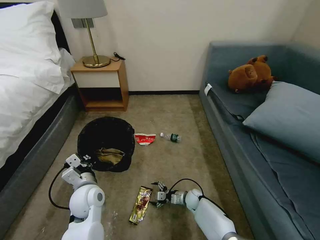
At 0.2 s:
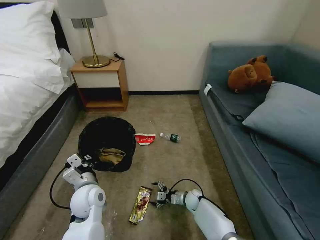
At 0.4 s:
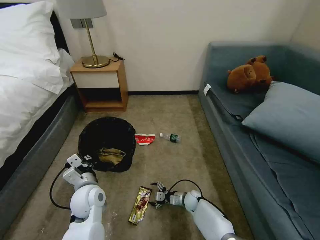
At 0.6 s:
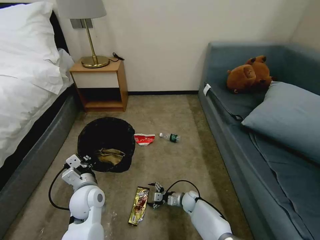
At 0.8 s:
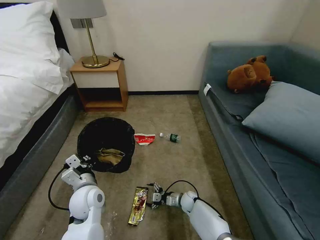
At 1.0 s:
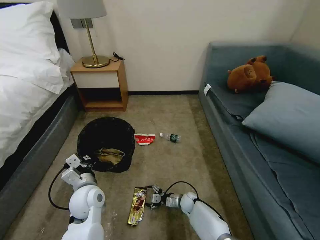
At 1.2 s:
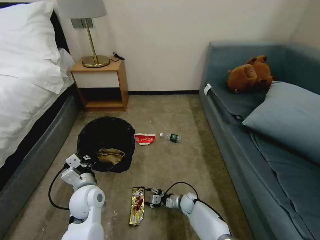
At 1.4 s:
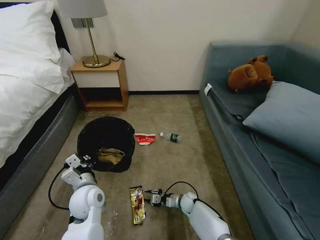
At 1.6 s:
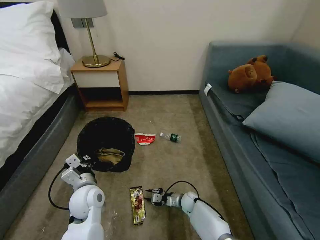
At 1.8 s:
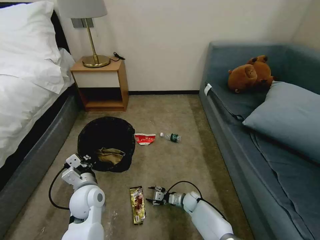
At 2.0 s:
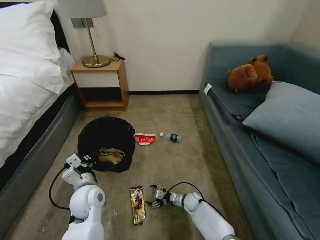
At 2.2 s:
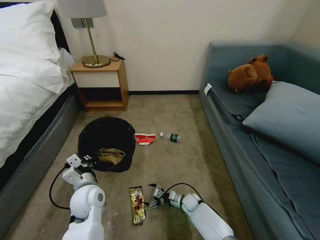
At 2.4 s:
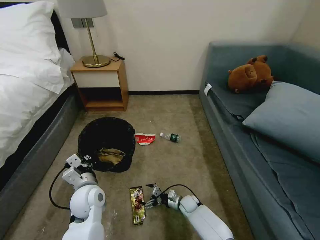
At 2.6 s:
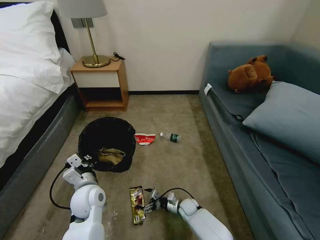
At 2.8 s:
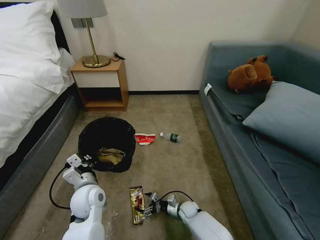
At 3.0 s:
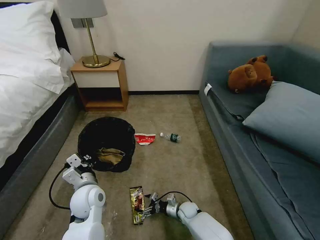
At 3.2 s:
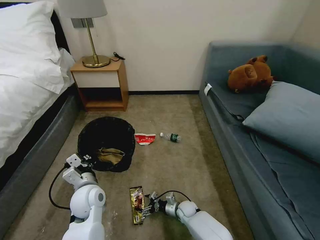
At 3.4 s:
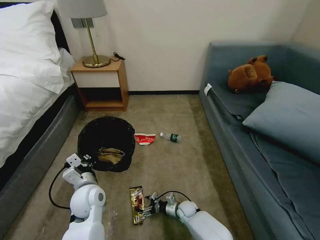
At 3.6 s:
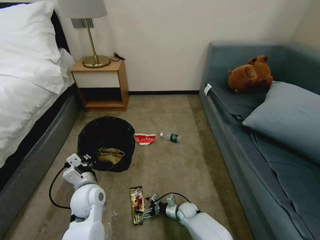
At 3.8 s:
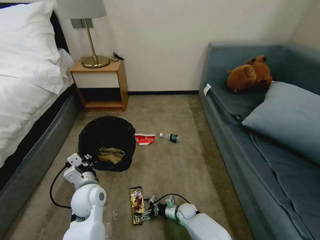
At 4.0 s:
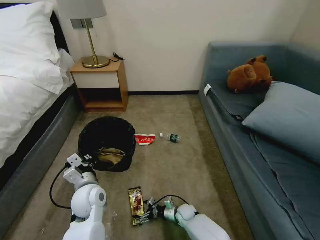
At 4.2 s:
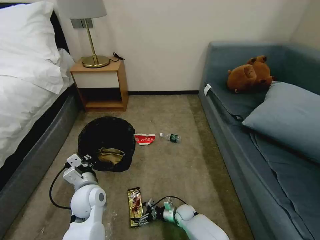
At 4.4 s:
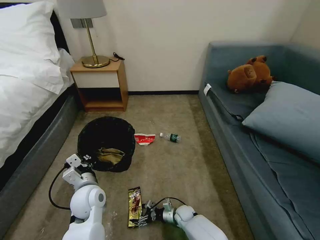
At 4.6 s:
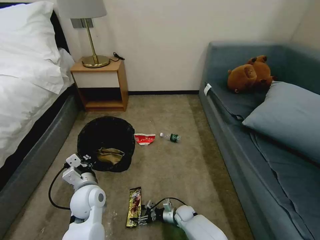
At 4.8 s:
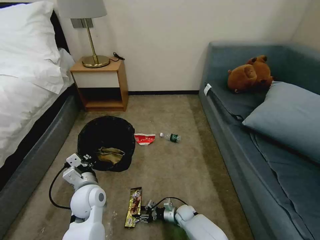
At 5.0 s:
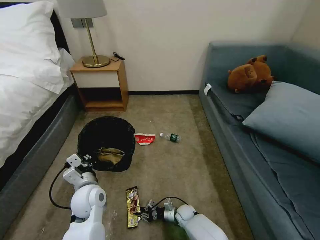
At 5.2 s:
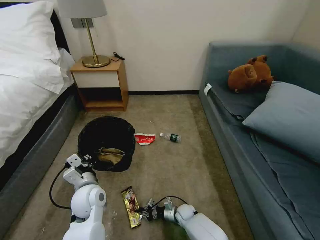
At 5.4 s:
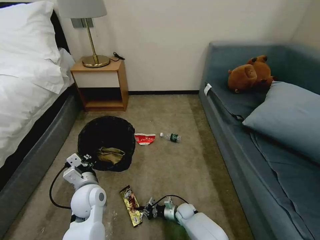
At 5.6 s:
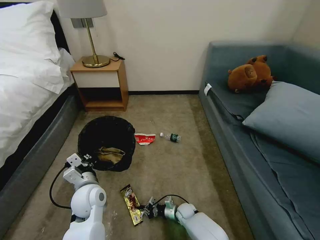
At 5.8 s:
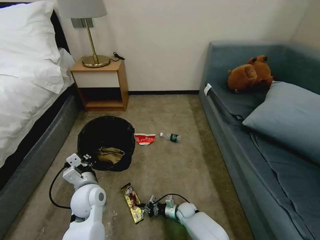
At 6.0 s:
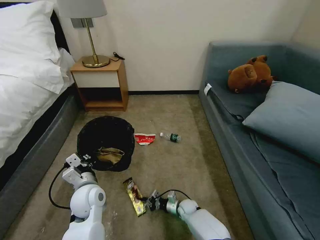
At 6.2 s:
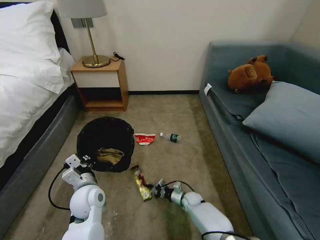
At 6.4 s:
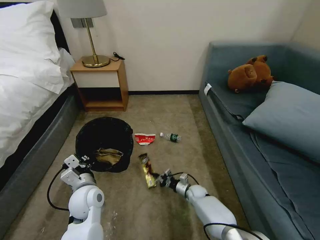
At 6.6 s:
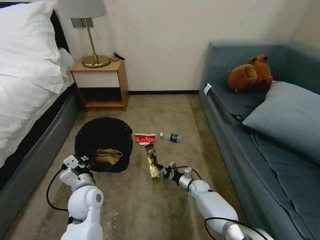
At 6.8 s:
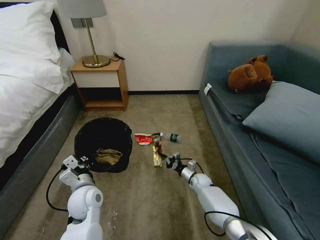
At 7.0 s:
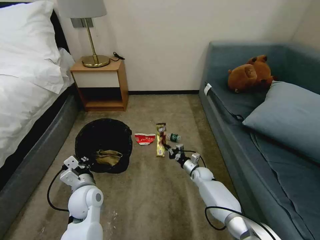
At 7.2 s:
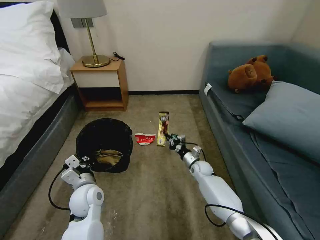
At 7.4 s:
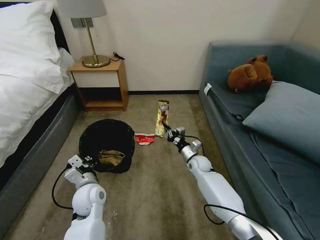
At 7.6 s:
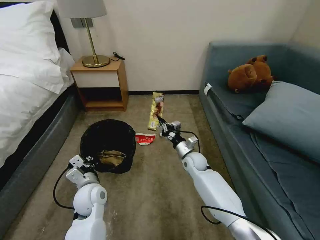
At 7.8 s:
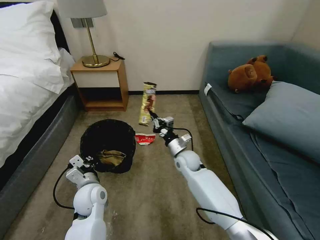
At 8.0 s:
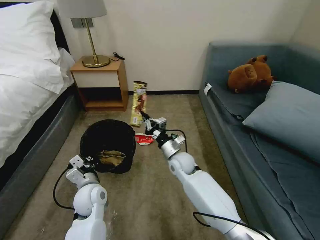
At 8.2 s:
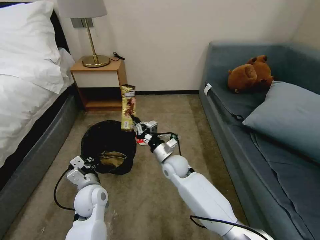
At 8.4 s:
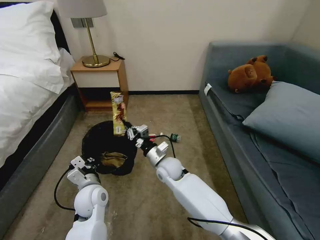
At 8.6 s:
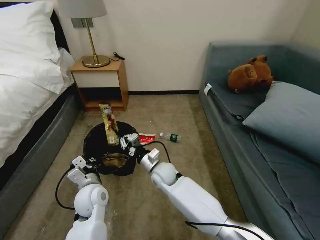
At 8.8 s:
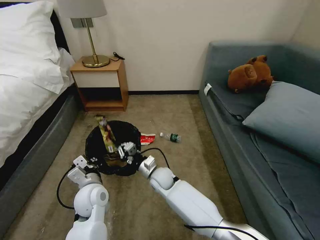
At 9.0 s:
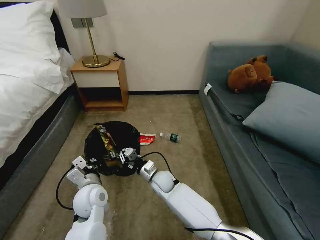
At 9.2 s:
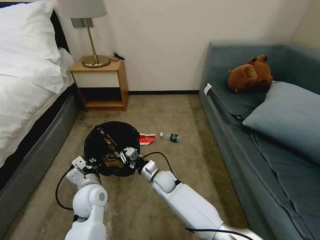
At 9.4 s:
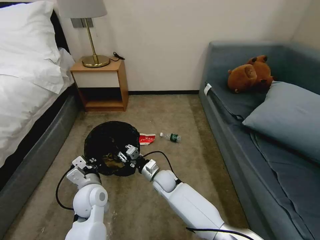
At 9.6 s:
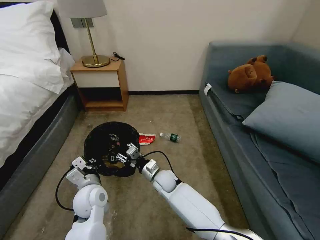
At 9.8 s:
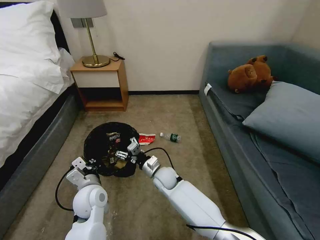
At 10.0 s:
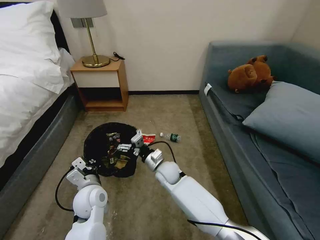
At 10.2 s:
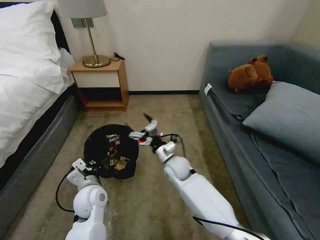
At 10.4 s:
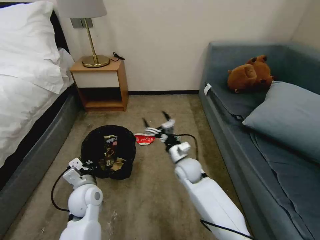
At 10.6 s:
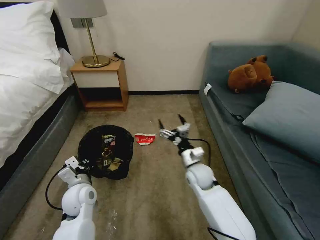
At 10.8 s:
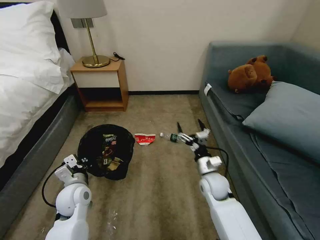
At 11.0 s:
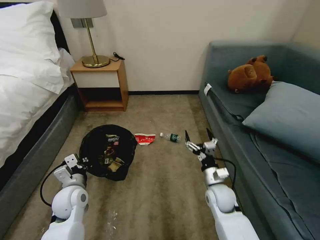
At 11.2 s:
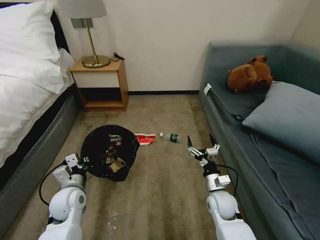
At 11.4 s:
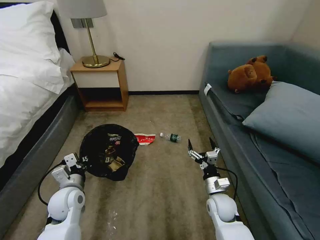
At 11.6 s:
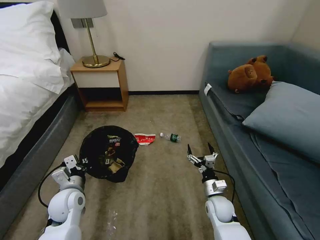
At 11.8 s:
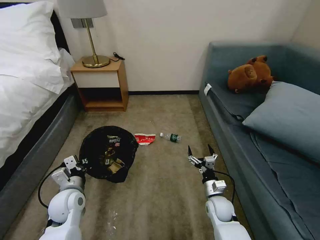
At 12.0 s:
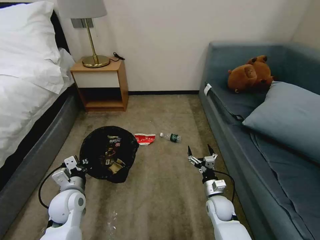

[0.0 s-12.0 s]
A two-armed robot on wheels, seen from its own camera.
Task of the whole recording: Pick up the trash bin, then pick up the garbage on the floor and place it into the trash bin.
0.0 to 1.6 s: The right gripper closes.
1.6 to 3.0 s: The right gripper opens its fingers.
3.0 to 4.4 s: The grippers make only small movements.
4.4 to 6.0 s: The right gripper closes its fingers.
6.0 to 7.6 s: The right gripper travels upward and forward by approximately 25 cm.
7.6 to 9.0 s: The right gripper moves to the left and backward, approximately 15 cm.
9.0 to 10.4 s: The right gripper shifts approximately 10 cm to the right and upward, and opens up.
10.4 to 12.0 s: The left gripper moves to the left, roughly 5 cm, while the right gripper shifts some 20 cm to the right, downward and backward.

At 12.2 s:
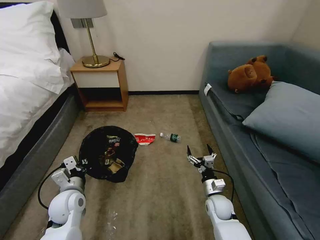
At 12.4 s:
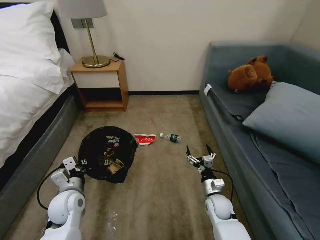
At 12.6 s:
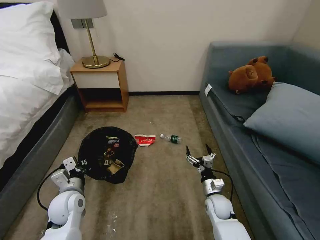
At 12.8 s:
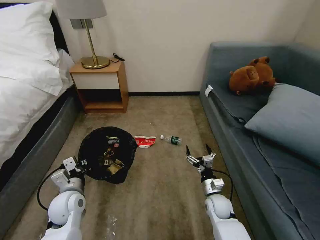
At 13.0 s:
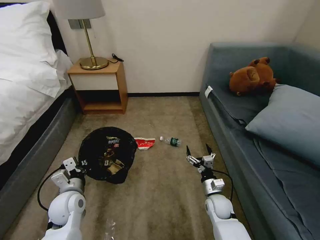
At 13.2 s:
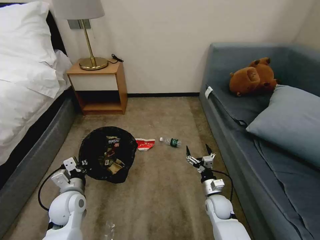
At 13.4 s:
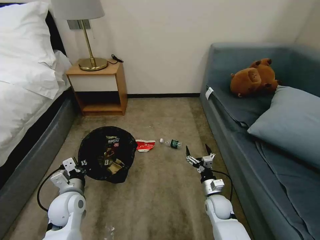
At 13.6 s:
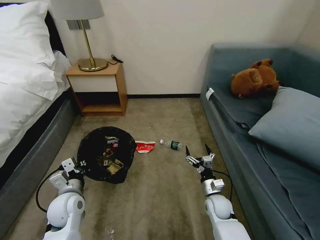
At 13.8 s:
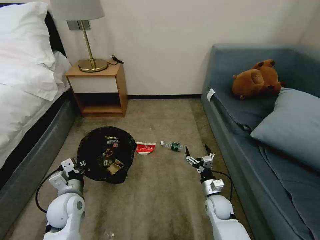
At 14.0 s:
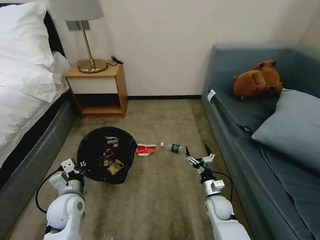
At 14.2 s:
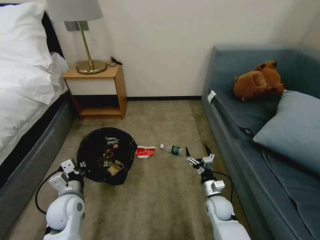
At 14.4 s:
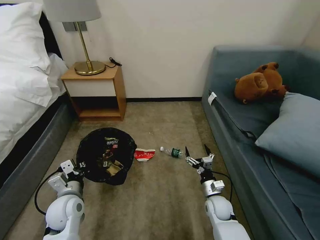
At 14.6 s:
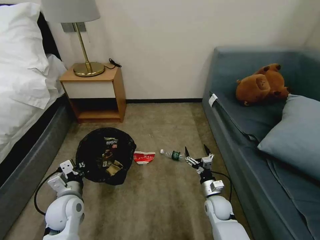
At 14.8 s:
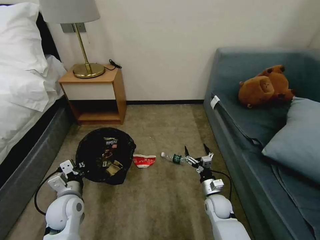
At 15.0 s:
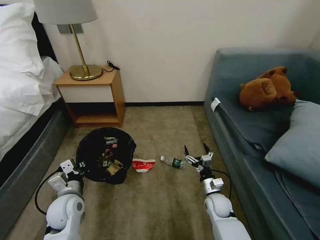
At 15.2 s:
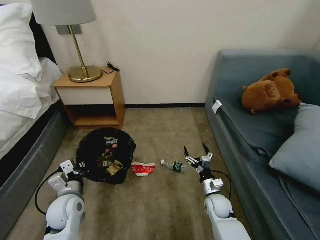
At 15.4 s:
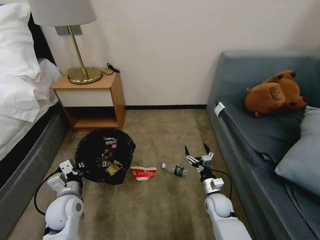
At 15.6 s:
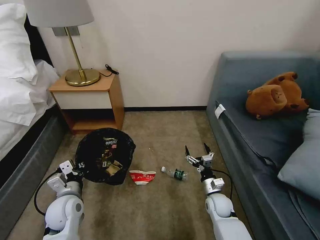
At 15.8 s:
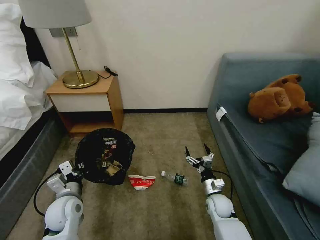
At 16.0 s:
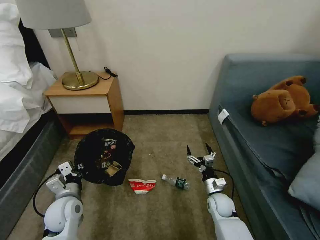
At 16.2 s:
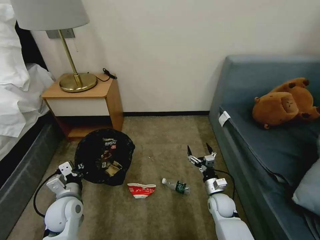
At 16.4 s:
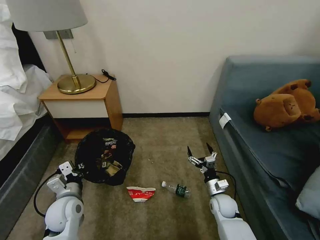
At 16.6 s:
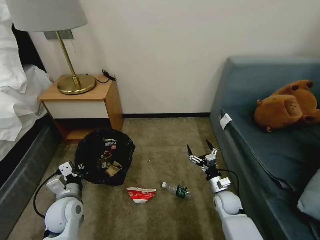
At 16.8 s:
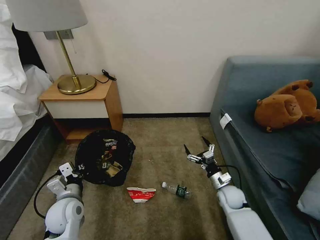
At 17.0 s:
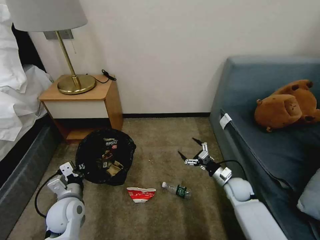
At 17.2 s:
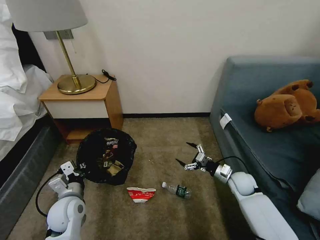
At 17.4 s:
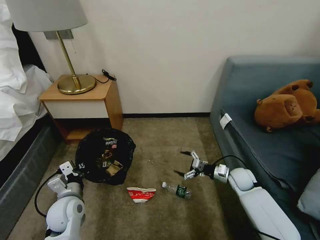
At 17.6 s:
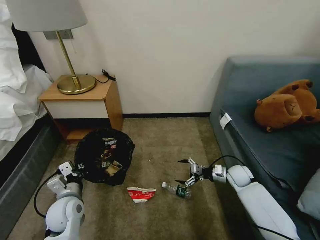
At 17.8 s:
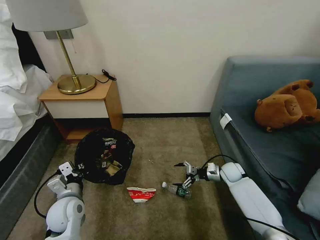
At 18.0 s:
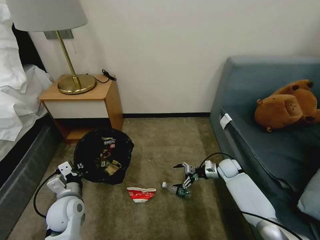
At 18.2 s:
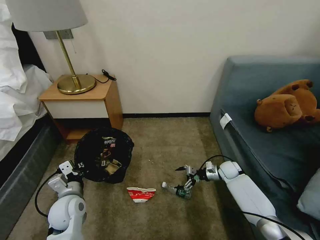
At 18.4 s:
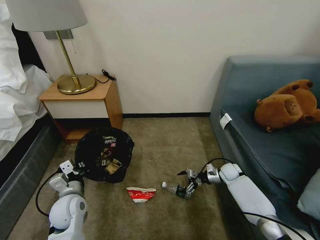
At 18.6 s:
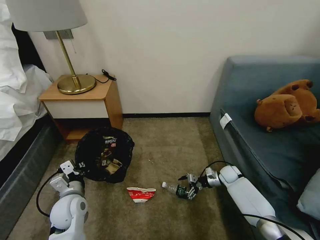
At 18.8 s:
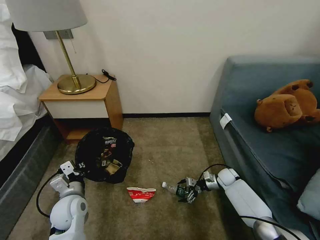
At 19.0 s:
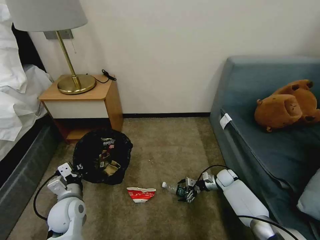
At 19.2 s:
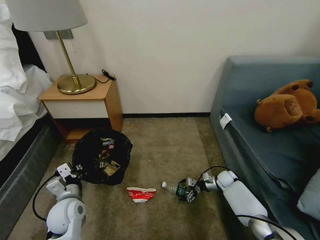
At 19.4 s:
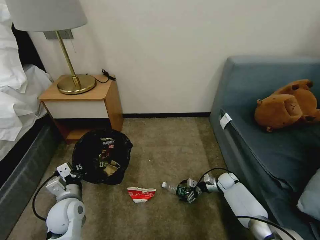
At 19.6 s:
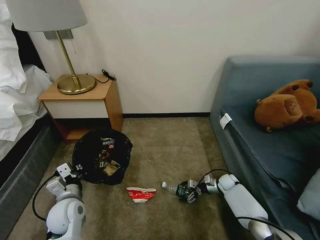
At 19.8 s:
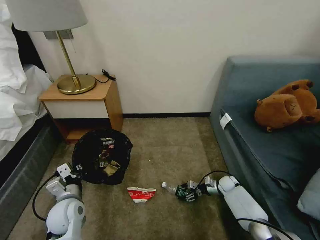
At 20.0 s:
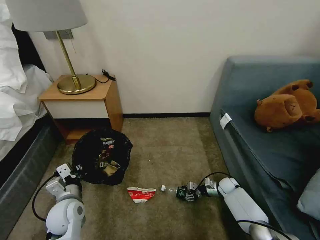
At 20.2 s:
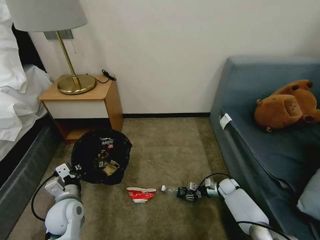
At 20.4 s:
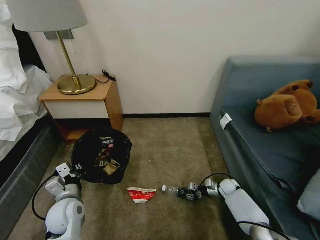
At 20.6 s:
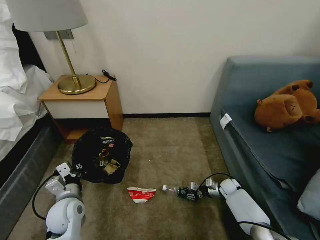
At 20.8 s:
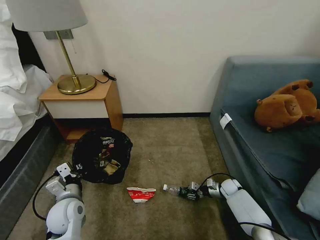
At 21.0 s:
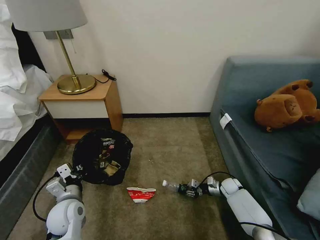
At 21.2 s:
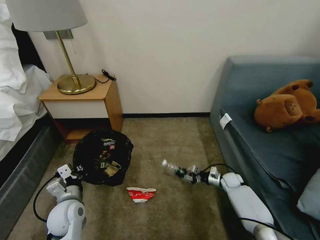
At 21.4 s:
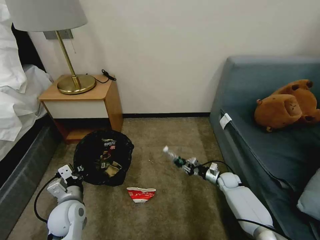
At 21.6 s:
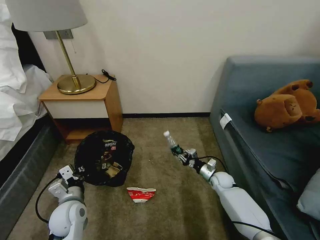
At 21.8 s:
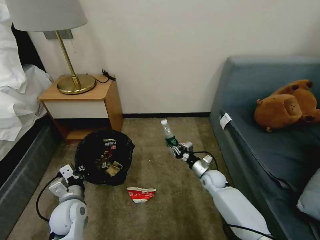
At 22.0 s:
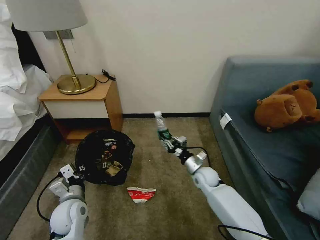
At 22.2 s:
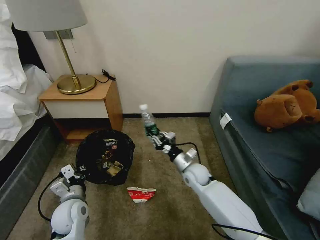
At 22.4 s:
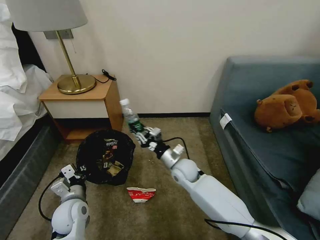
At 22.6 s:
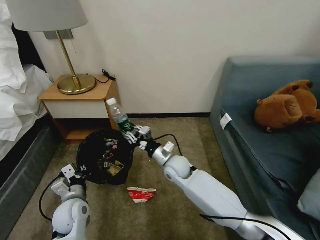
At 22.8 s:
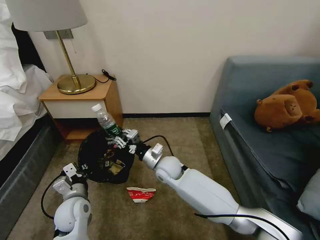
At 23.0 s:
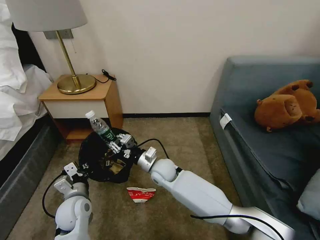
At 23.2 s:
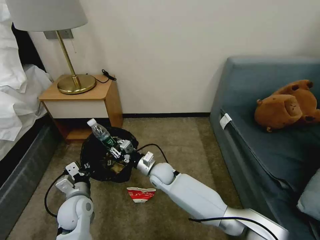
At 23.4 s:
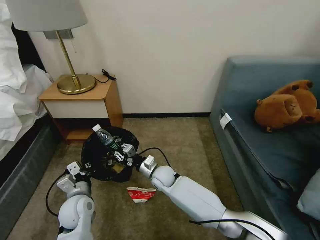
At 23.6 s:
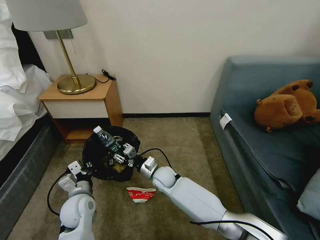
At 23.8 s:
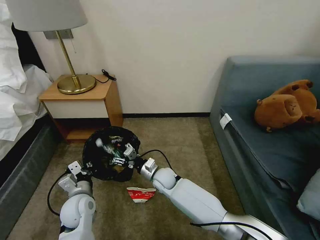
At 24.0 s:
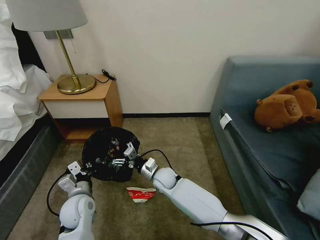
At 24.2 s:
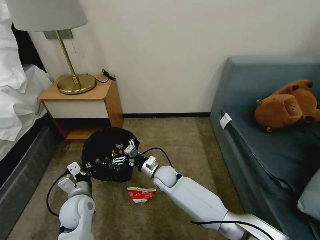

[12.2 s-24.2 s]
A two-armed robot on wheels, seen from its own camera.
Task of the whole recording: Pick up the trash bin, then pick up the garbage on the floor and place it into the trash bin.
12.2 to 13.8 s: Neither gripper changes place.
16.6 to 18.2 s: The right gripper shifts about 15 cm forward and to the right.
18.2 to 19.8 s: The right gripper shifts about 10 cm downward.
19.8 to 21.2 s: The right gripper closes.
21.2 to 22.6 s: The right gripper heads to the left and upward, covering approximately 35 cm.
22.6 to 24.2 s: The right gripper is displaced downward by some 10 cm, and opens up.
